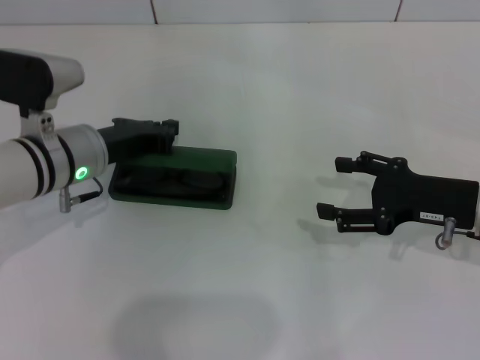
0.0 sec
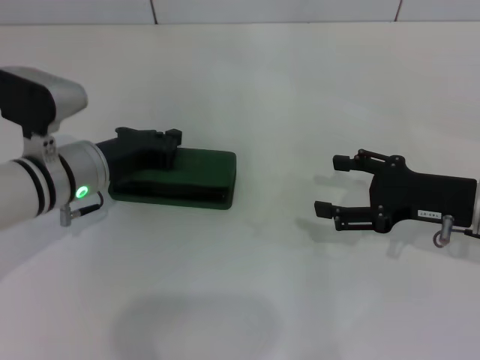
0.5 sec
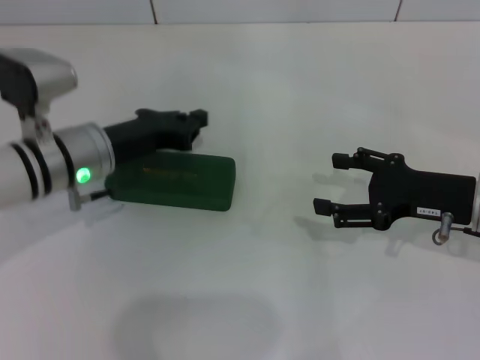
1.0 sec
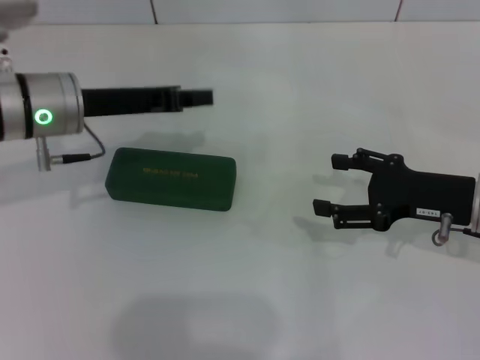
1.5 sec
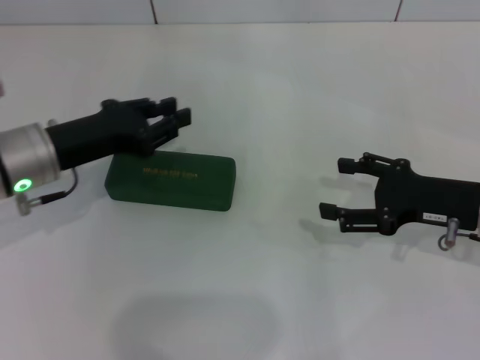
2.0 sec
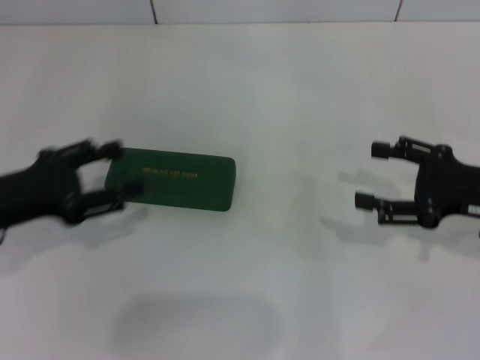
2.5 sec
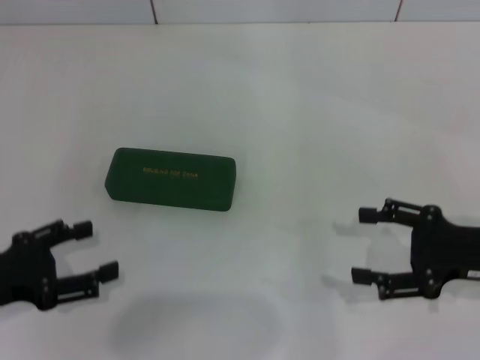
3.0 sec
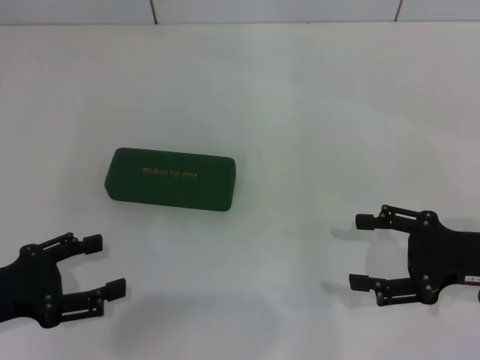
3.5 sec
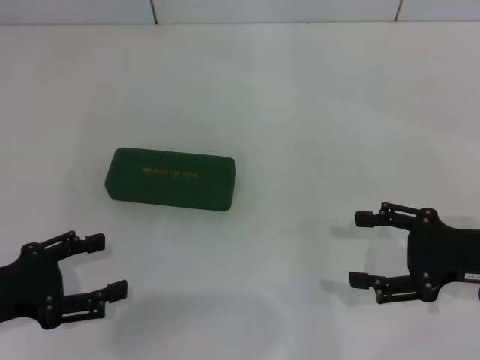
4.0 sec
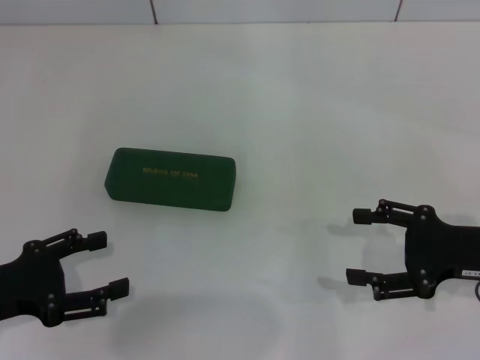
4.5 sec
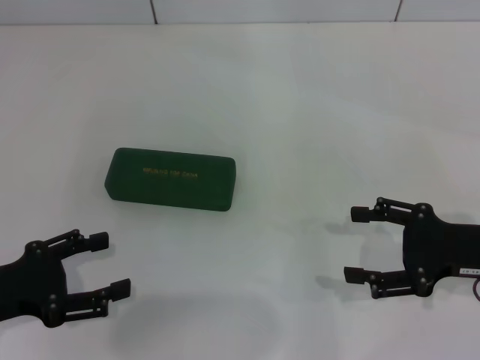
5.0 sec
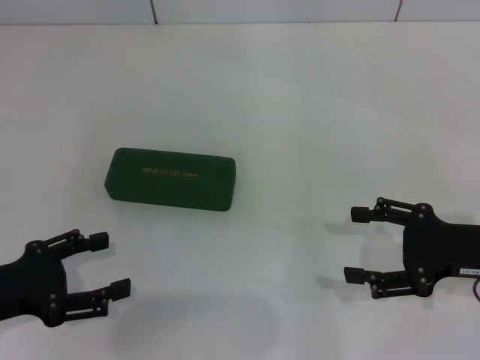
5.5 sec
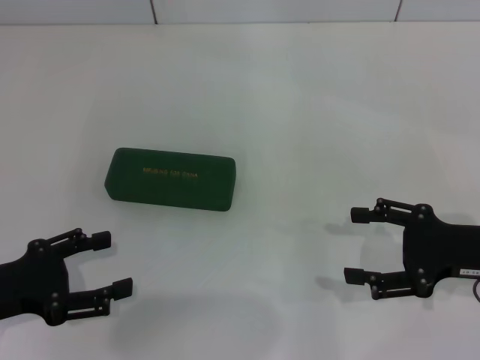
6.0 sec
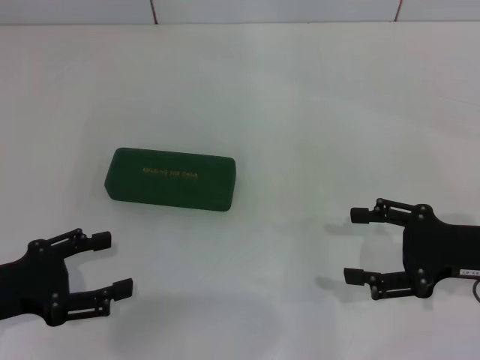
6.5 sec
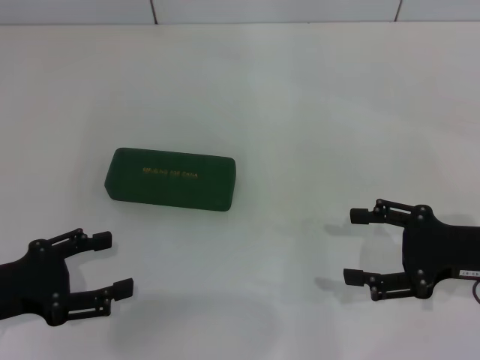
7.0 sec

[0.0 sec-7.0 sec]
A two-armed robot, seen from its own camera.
0.0 sec to 2.0 sec: The left gripper moves about 5 cm upward and comes back.
2.0 sec to 3.5 sec: The right gripper shifts by roughly 5 cm. Meanwhile the left gripper is displaced backward and to the left by about 15 cm, and opens its fingers.
3.5 sec to 7.0 sec: Neither gripper changes place.

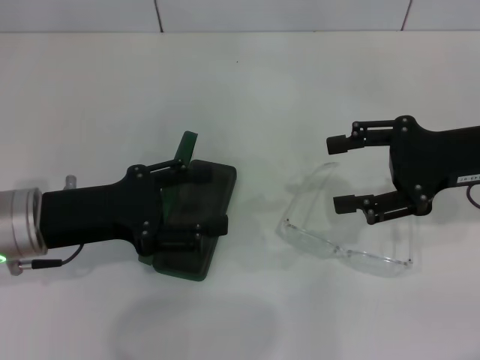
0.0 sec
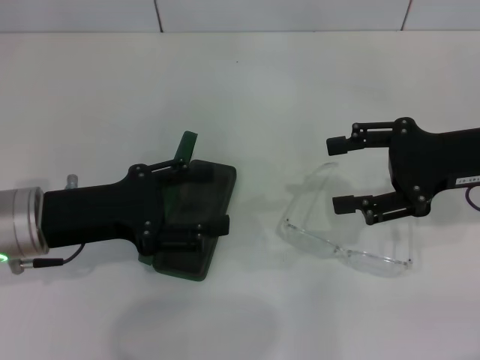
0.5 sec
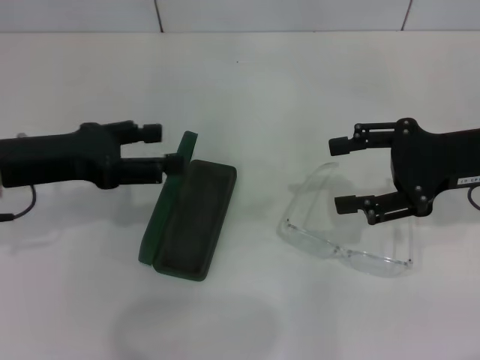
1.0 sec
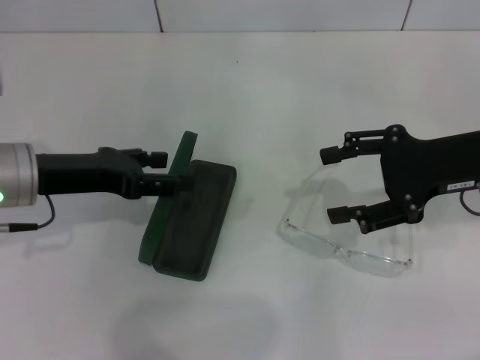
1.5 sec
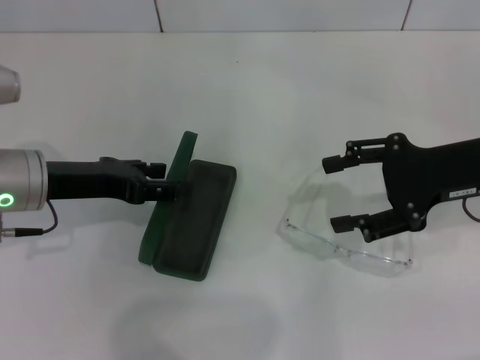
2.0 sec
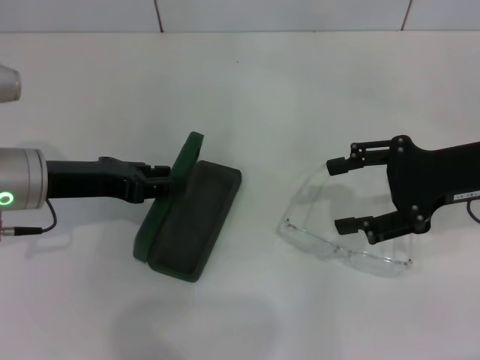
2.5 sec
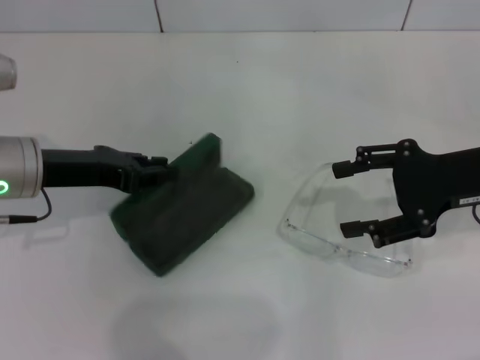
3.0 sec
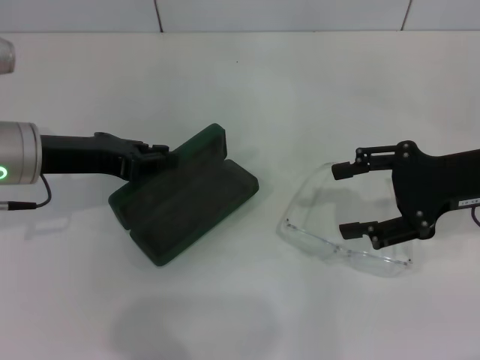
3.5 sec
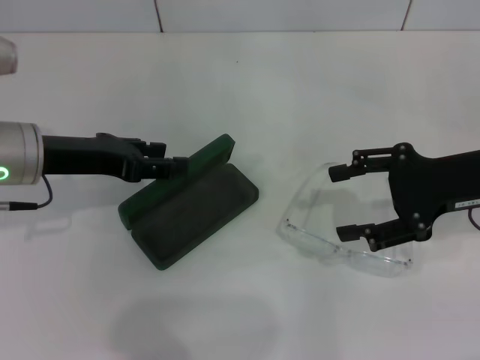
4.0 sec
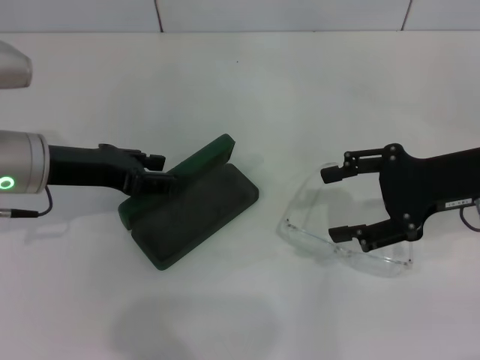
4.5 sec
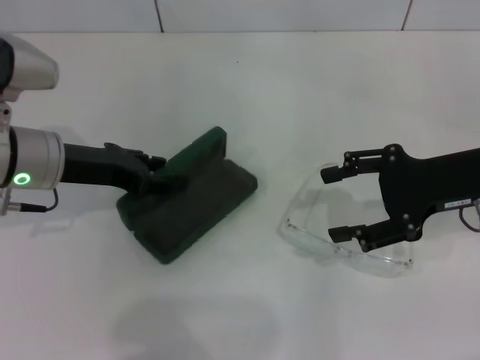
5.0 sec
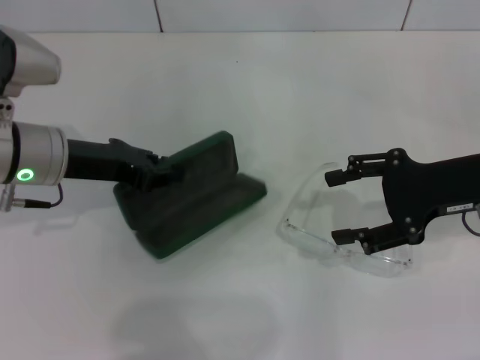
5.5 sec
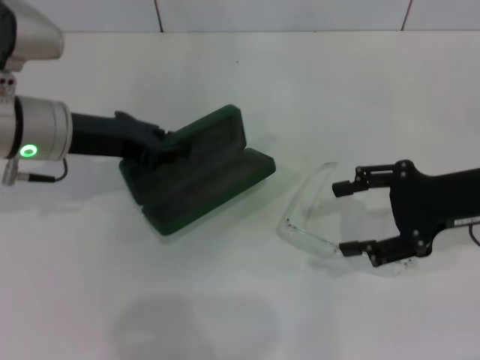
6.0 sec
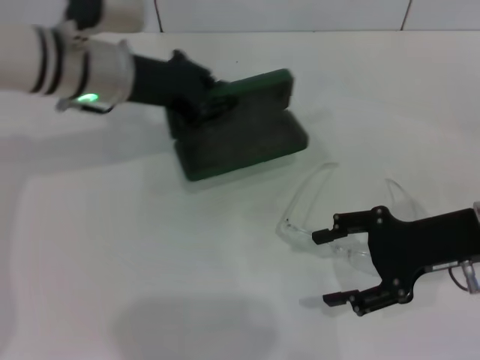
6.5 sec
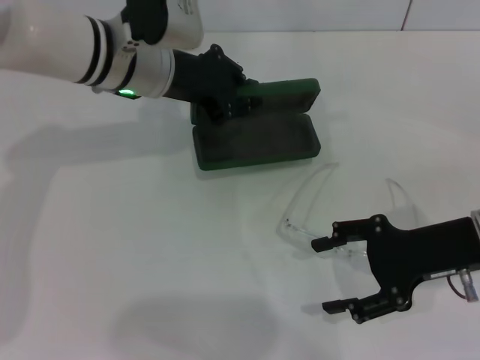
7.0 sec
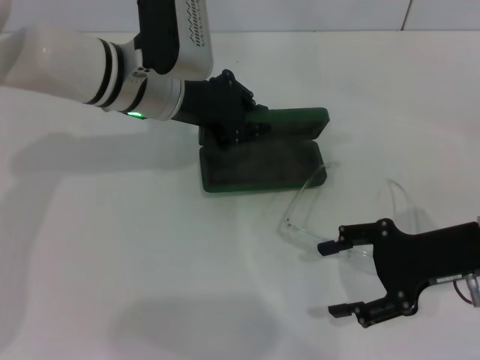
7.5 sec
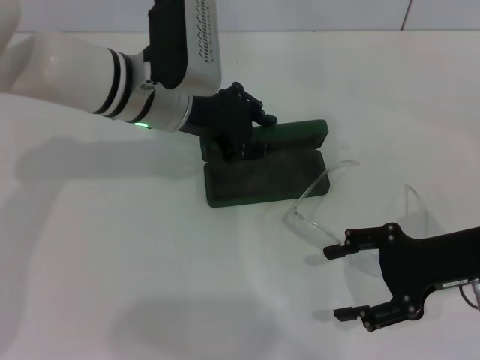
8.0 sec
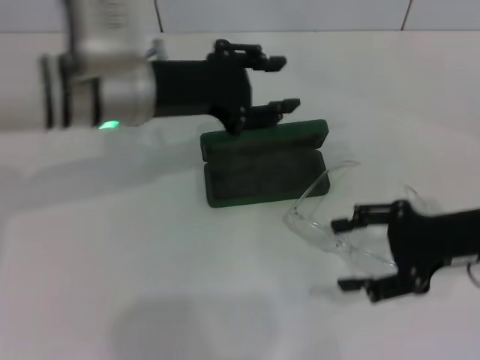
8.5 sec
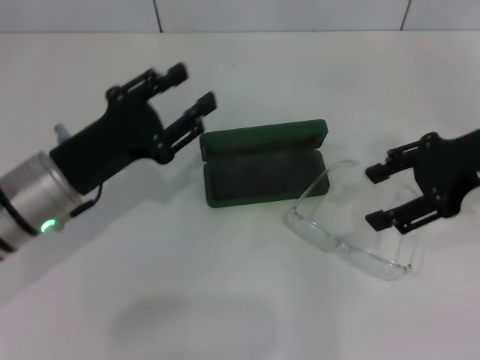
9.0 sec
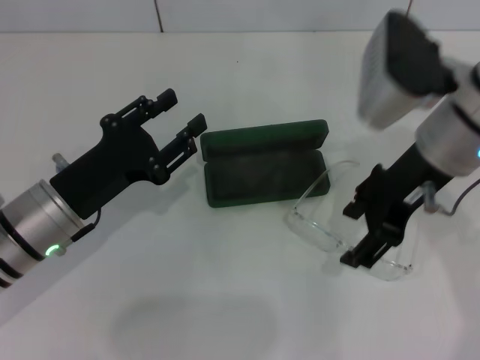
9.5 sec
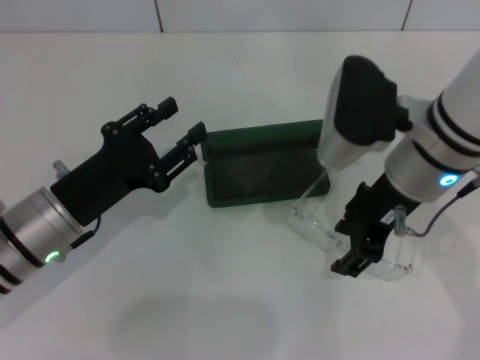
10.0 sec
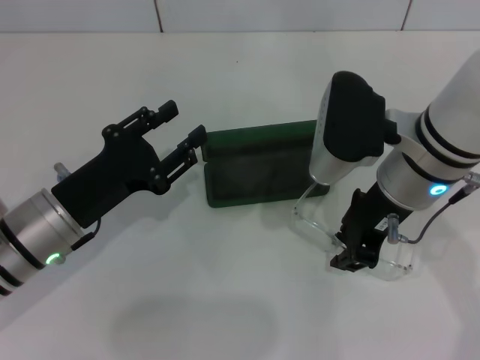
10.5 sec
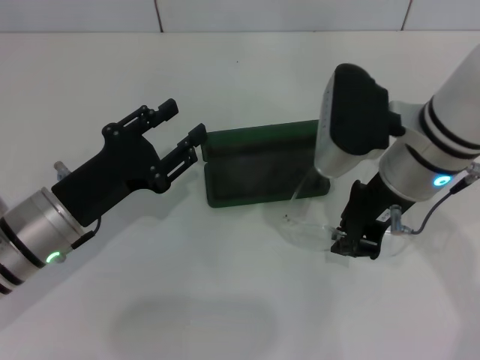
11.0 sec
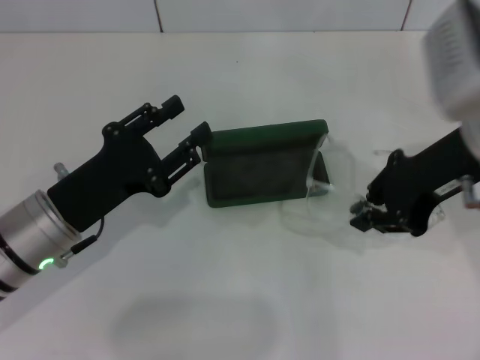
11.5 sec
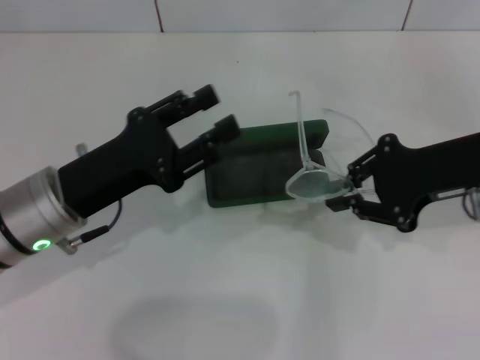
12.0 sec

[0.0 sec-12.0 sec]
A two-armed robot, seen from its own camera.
Step, 0.0 sec to 2.5 sec: Grab the glasses case with your left hand.
Step, 3.0 sec to 8.0 sec: Place the glasses case in the center of the table with your left hand.
Step, 8.5 sec to 10.5 sec: Grab the eyeglass frame with your right hand.
2.0 sec to 4.0 sec: The left gripper closes up.
4.0 sec to 6.0 sec: The left gripper closes.
6.0 sec to 8.0 sec: The right gripper changes place by about 5 cm, while the left gripper goes approximately 10 cm to the right.
8.0 sec to 10.0 sec: The left gripper heads backward, to the left and downward, covering approximately 20 cm, and opens up. The right gripper is displaced to the left and upward by some 15 cm.
10.0 sec to 12.0 sec: The right gripper goes roughly 10 cm to the right, and closes.

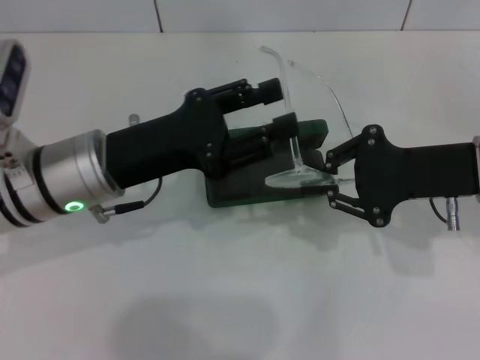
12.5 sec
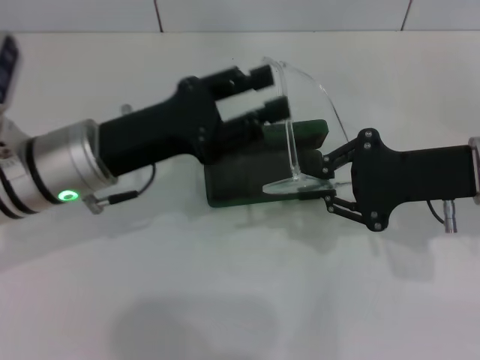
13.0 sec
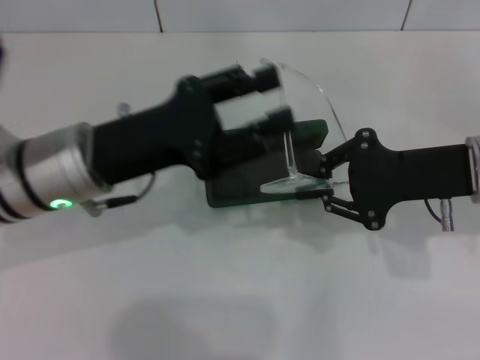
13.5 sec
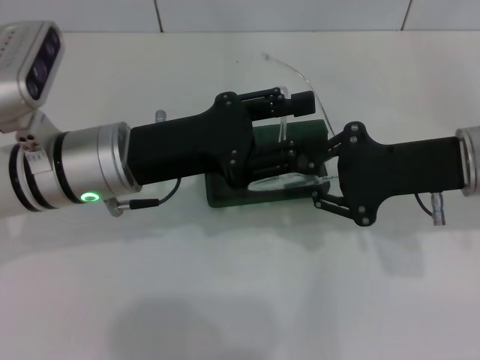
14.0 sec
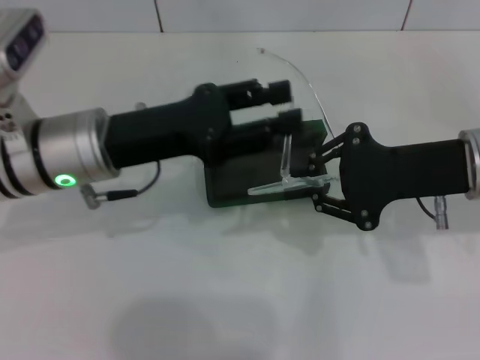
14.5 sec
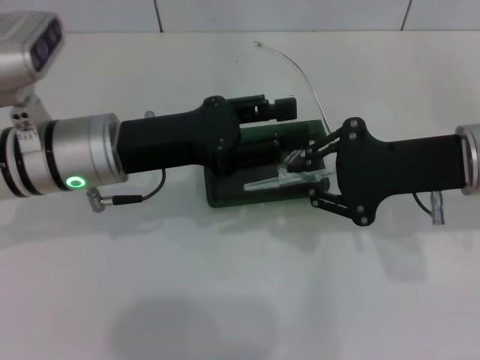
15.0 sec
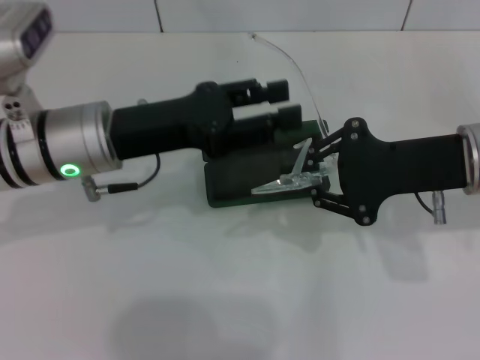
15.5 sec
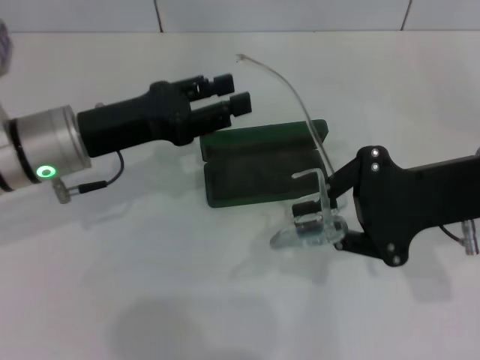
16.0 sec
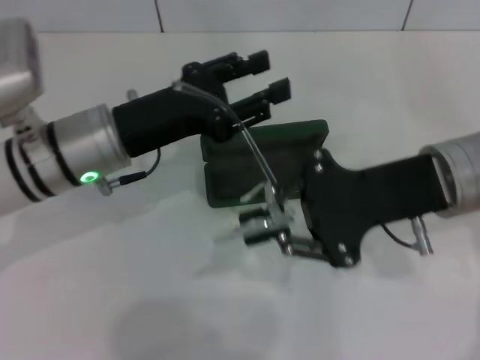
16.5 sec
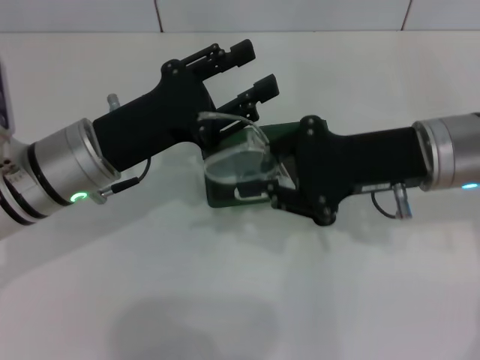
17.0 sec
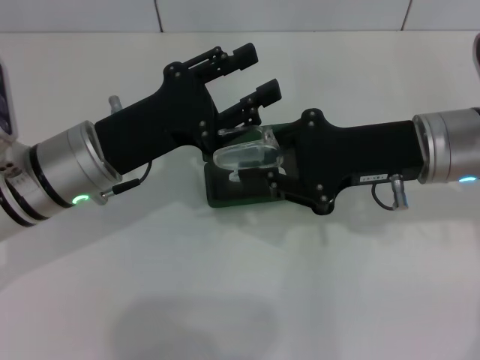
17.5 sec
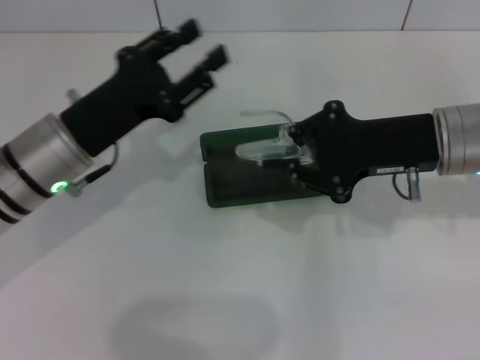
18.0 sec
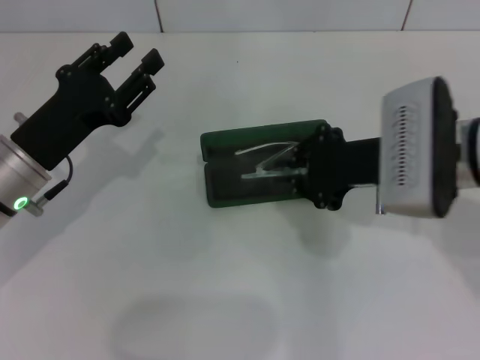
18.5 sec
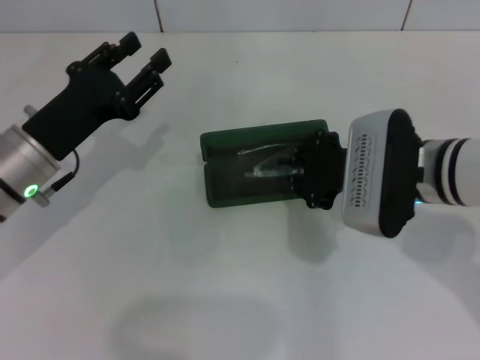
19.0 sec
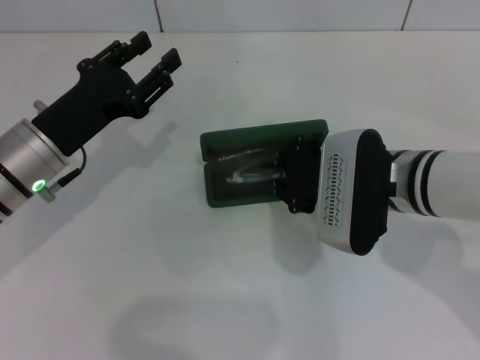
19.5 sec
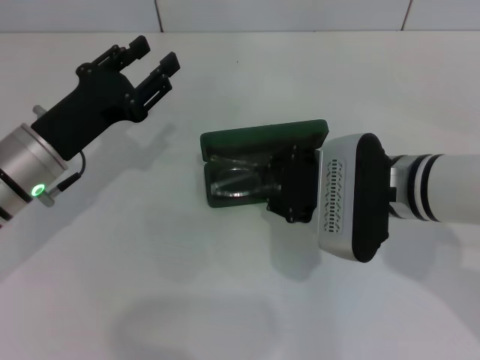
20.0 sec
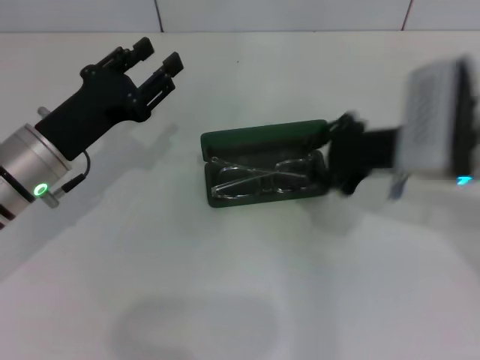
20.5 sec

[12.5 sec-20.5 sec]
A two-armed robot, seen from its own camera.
Step, 12.5 sec to 17.5 sec: Fold the frame with your left hand.
Step, 18.0 sec to 20.0 sec: Put the glasses into the case with your right hand.
12.5 sec to 14.5 sec: The grippers make only small movements.
16.5 sec to 18.5 sec: The left gripper goes some 5 cm to the left.
18.5 sec to 20.5 sec: The grippers move only a little.
